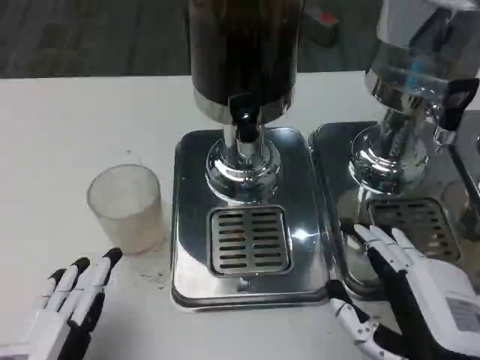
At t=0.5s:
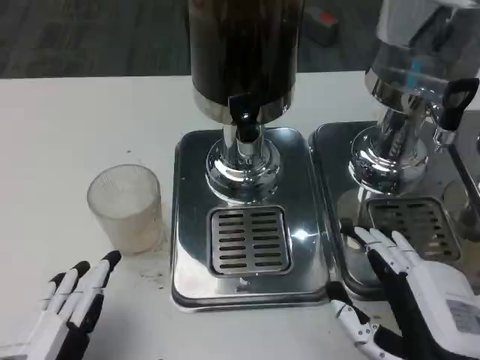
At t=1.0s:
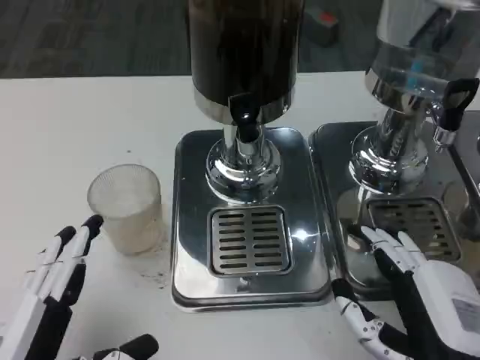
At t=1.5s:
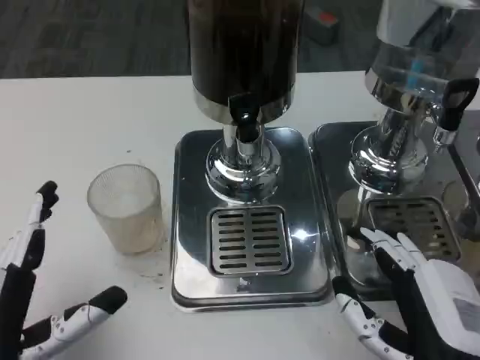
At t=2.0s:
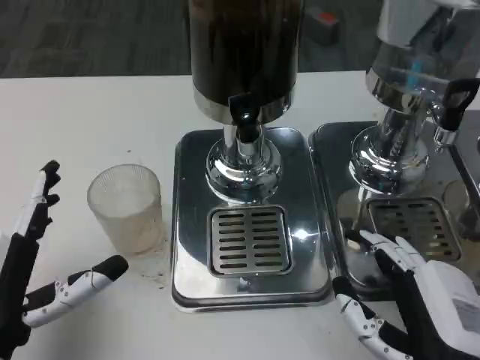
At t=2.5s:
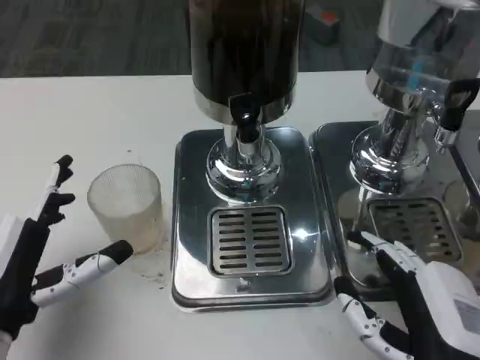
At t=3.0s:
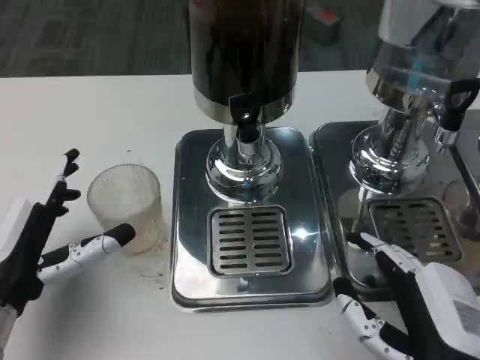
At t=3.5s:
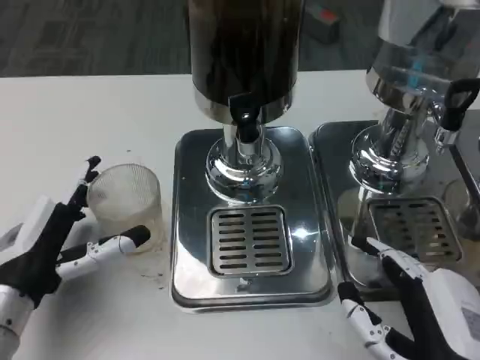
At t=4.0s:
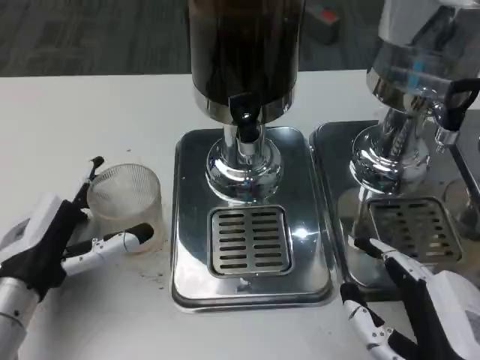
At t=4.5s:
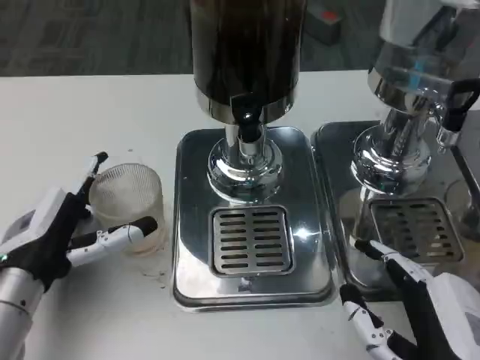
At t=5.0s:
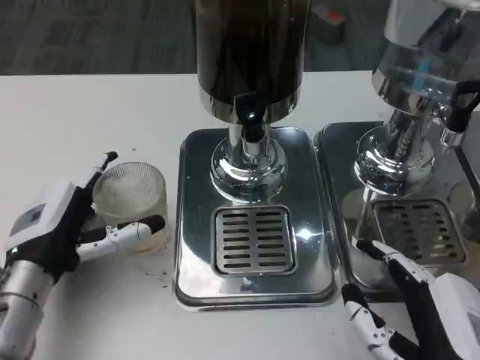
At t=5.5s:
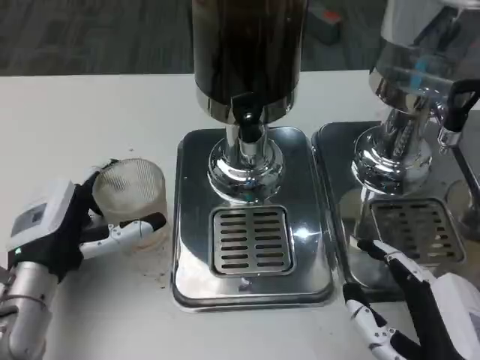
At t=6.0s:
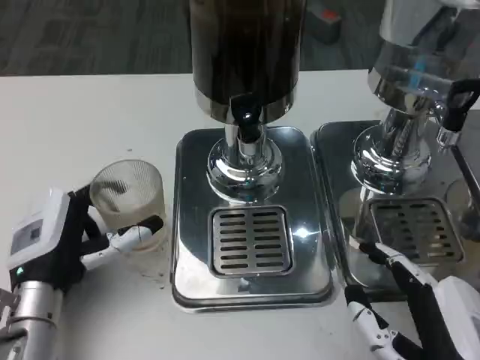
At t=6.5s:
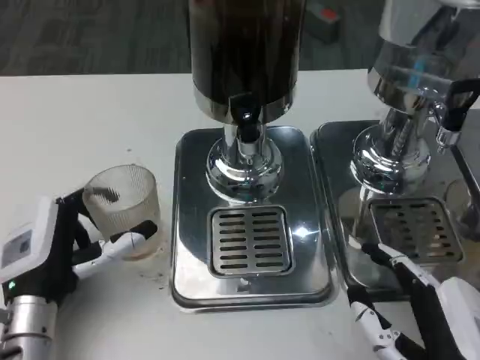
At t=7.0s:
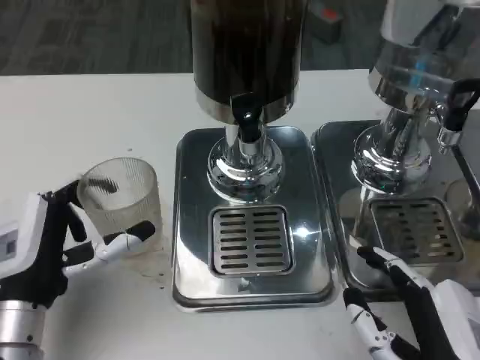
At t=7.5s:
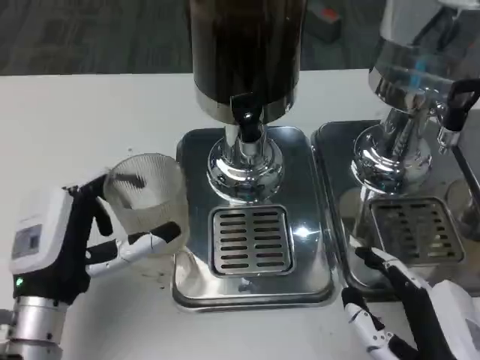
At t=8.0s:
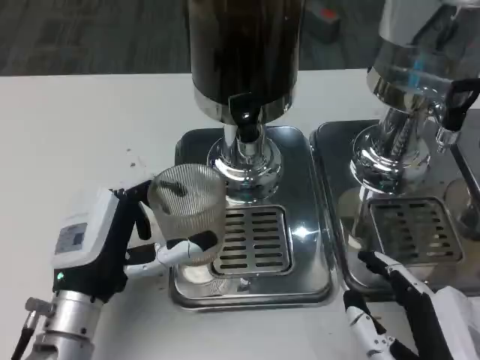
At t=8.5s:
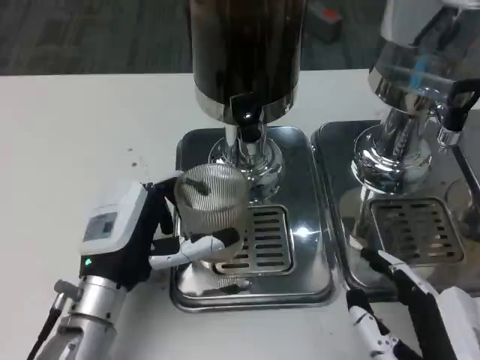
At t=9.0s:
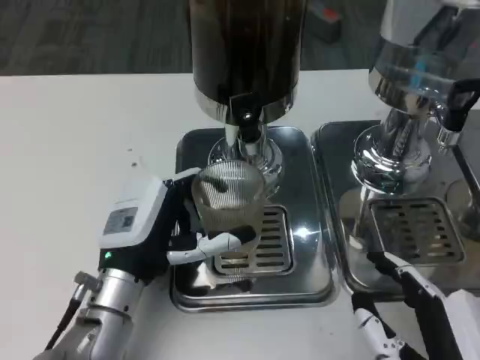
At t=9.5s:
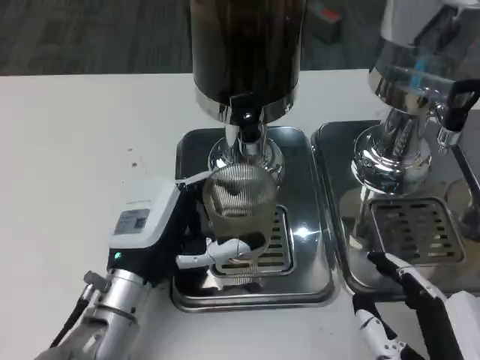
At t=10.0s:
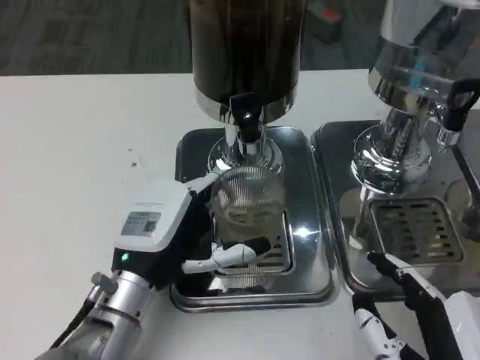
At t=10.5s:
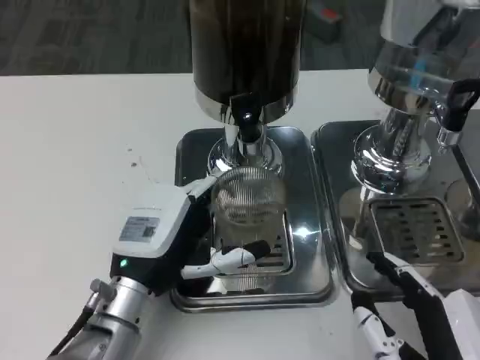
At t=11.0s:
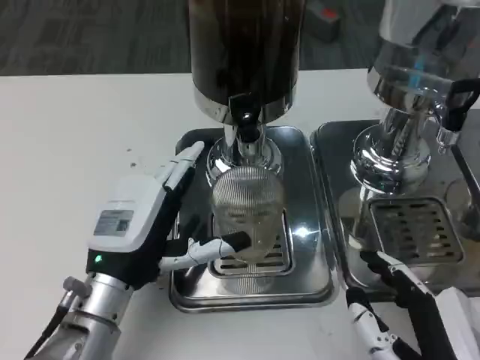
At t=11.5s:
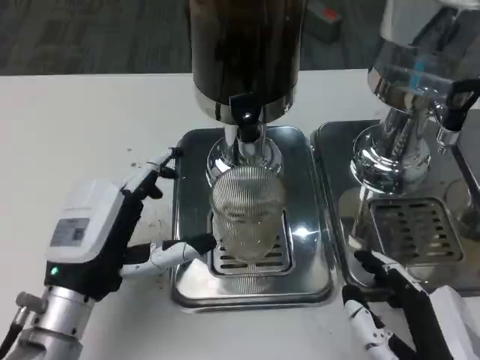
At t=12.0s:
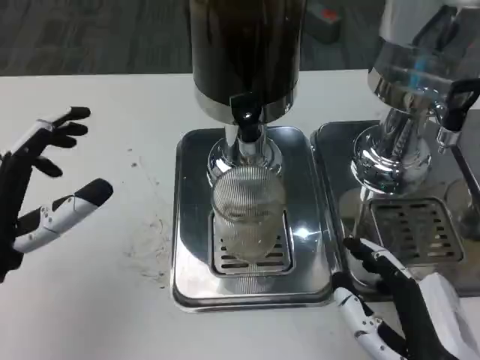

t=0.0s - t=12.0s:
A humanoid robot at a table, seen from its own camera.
Task of the whole recording: Grasp the cup under the faucet to collect the drink, then remove the cup.
t=0.0s - t=2.0s: The left hand heads forward, covering roughly 5 cm.
t=2.0s - t=4.0s: The left hand goes roughly 10 cm forward.
t=4.0s - t=6.0s: The hands stay close to where they were, moving slightly.
t=10.0s - t=12.0s: The left hand is displaced to the left and upward by about 15 cm.

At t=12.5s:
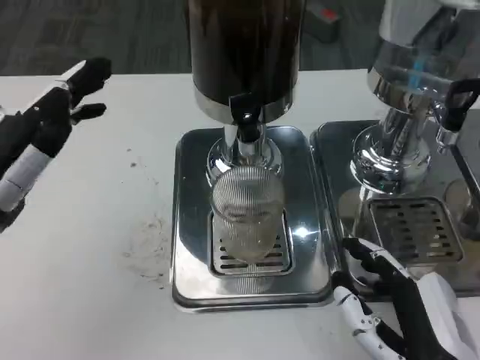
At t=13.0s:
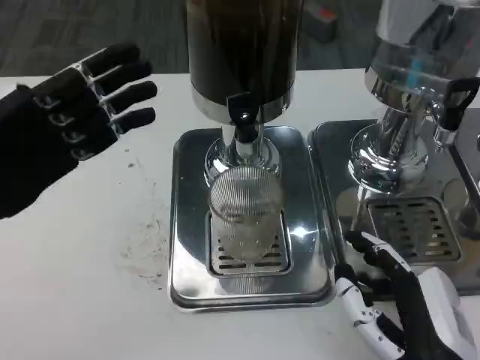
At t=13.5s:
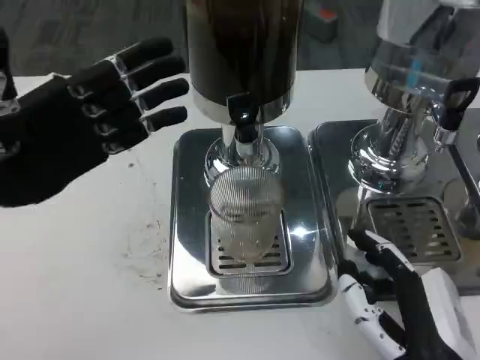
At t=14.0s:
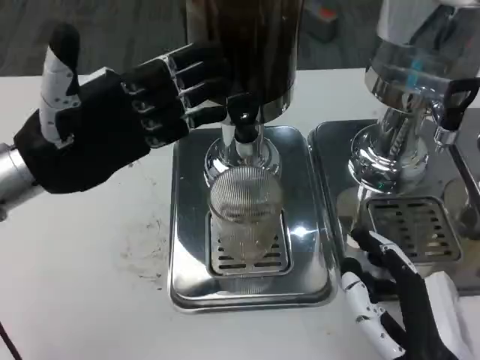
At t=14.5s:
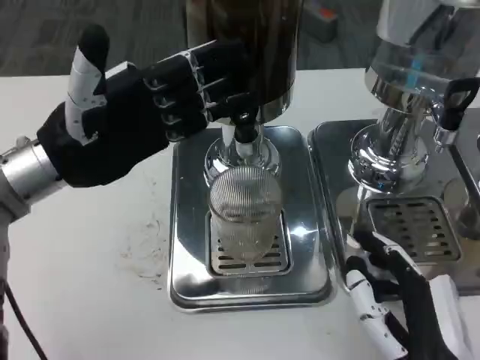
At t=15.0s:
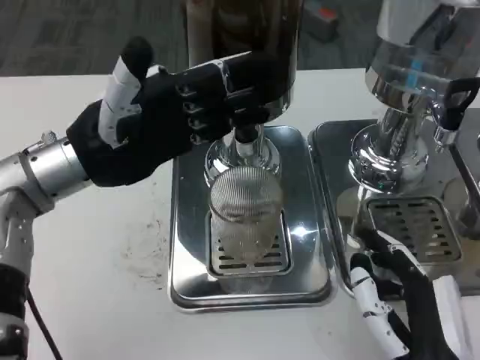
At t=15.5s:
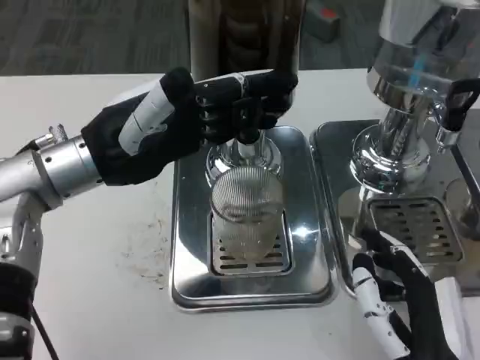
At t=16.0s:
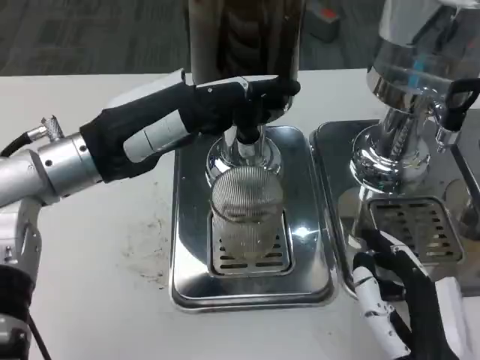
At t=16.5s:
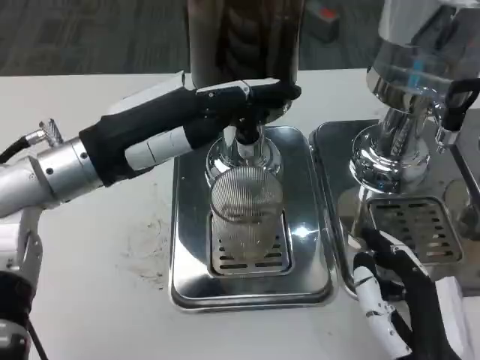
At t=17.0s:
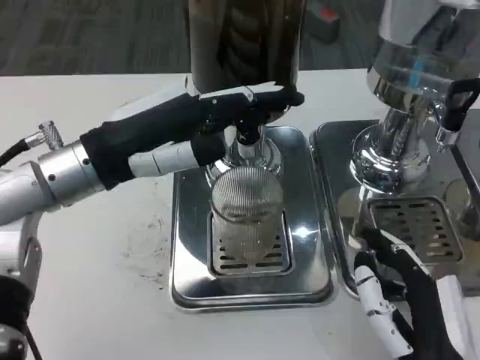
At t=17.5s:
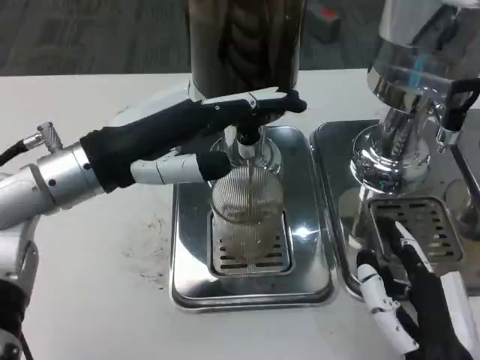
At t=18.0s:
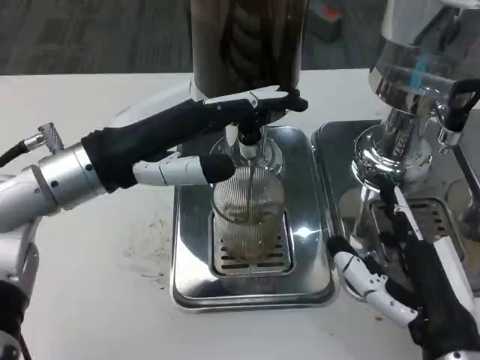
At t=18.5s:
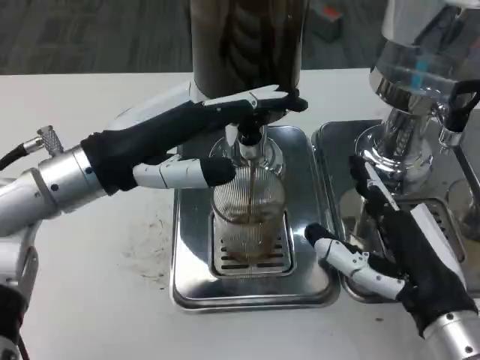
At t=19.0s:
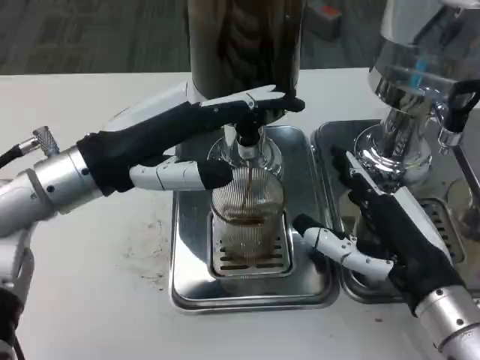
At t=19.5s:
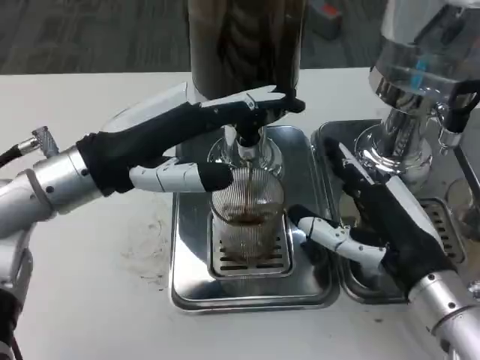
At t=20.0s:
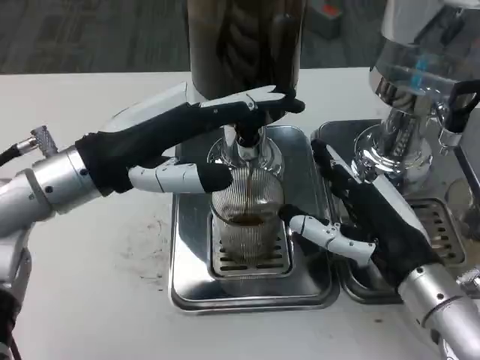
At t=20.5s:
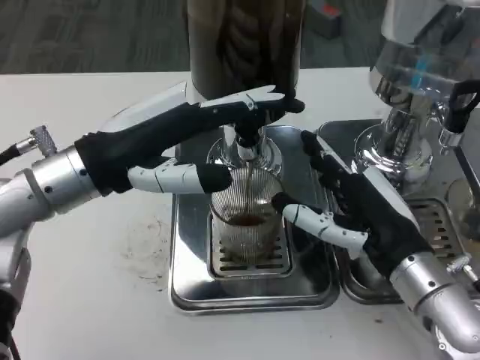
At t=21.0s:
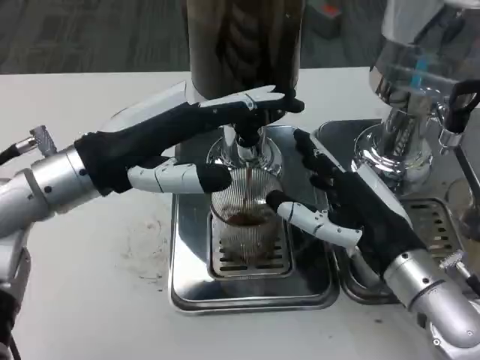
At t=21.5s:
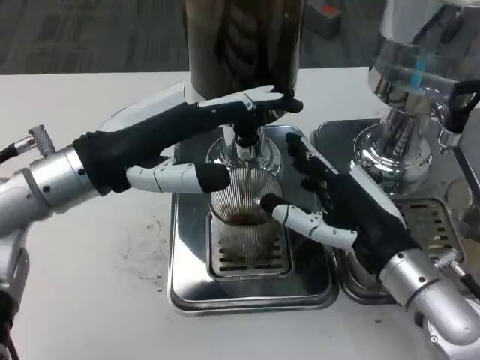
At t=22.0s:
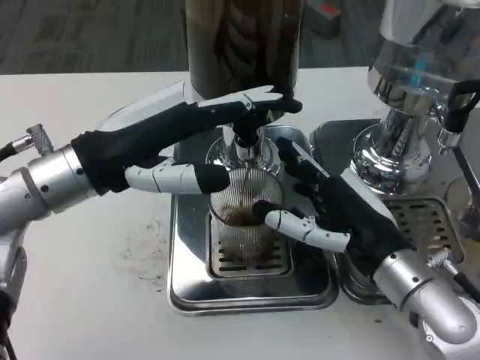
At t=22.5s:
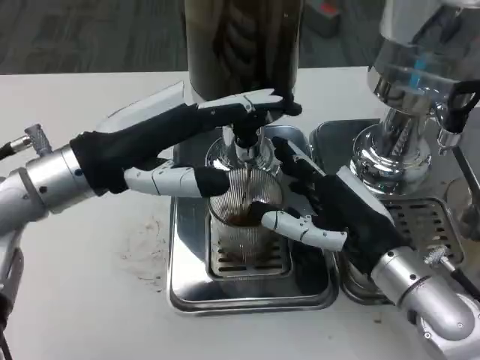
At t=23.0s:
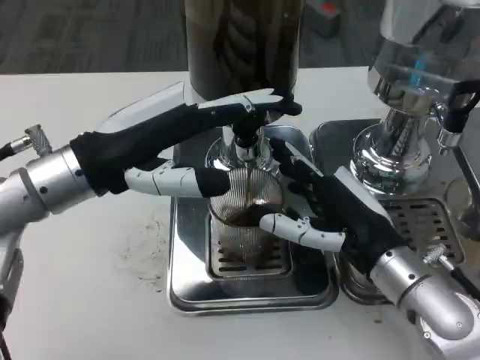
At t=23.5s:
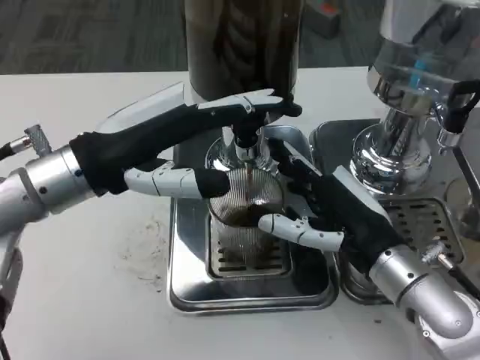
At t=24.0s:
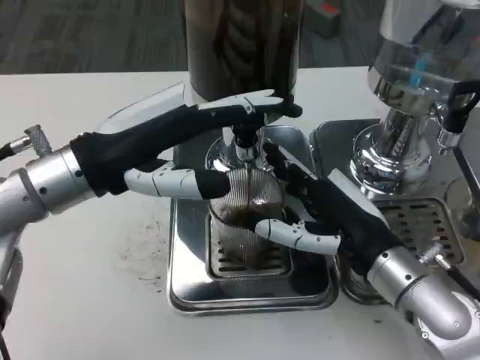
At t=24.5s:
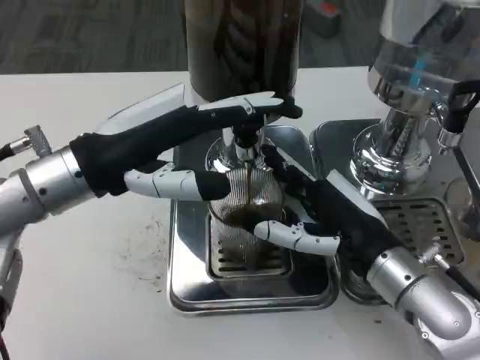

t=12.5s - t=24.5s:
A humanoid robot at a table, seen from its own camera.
Task of the whole recording: Grasp the cup under the faucet to collect the drink, then remove the cup.
t=12.5s - t=14.5s: The left hand moves forward, approximately 10 cm.
t=16.5s - t=18.5s: The right hand is displaced forward by about 5 cm.
t=18.5s - t=20.5s: The right hand heads forward, covering roughly 5 cm.
t=20.5s - t=22.5s: The hands move only a little.
t=22.5s - t=24.5s: Neither hand changes place.

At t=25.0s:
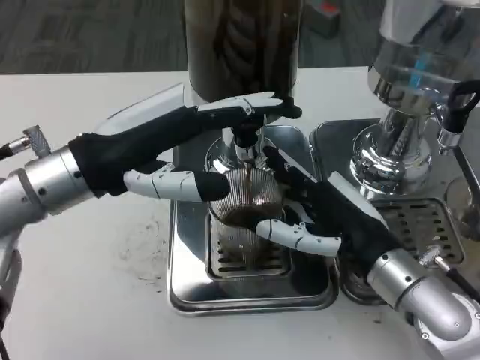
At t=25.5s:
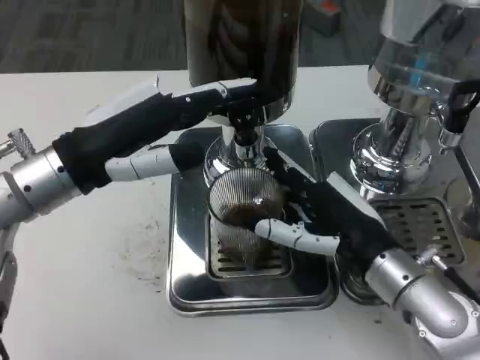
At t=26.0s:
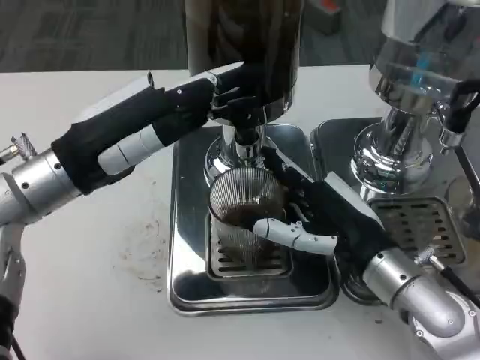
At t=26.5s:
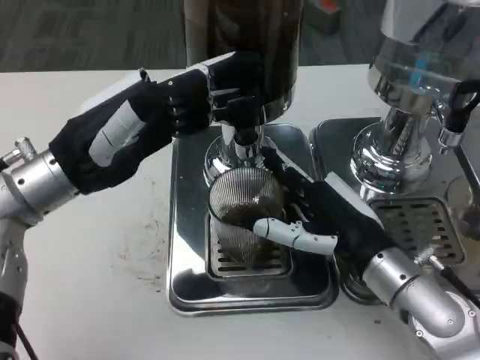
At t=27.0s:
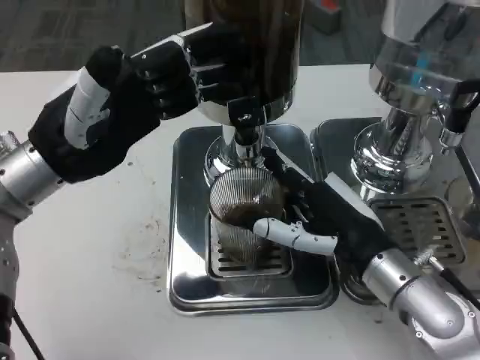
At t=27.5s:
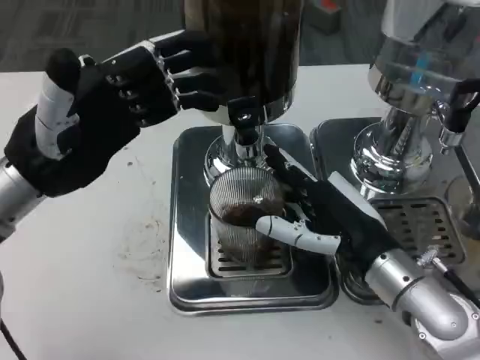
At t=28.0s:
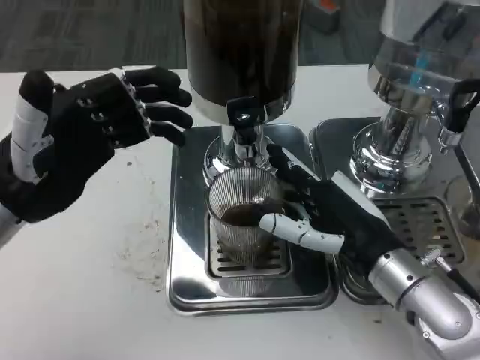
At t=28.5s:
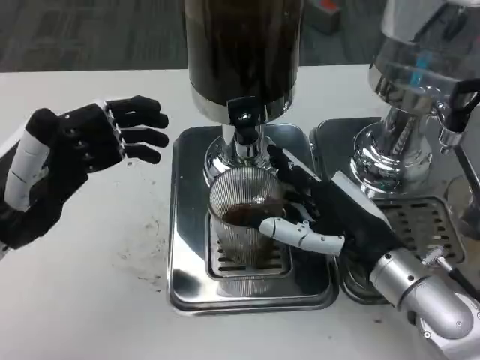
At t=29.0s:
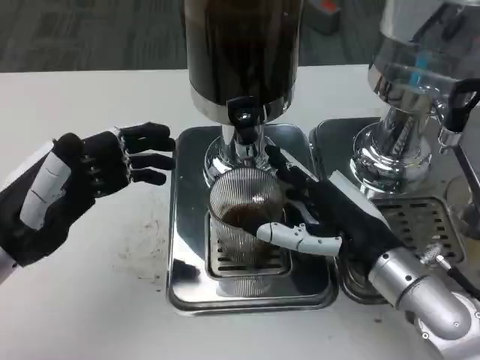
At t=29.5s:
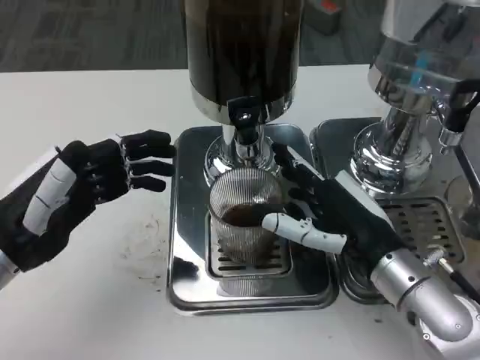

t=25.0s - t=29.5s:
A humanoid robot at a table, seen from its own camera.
Task of the whole recording: Grasp the cup under the faucet to collect the drink, then remove the cup.
t=27.0s - t=29.5s: The left hand is displaced backward and downward by roughly 10 cm.
